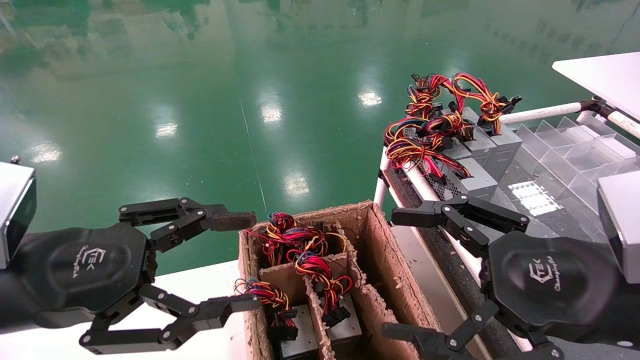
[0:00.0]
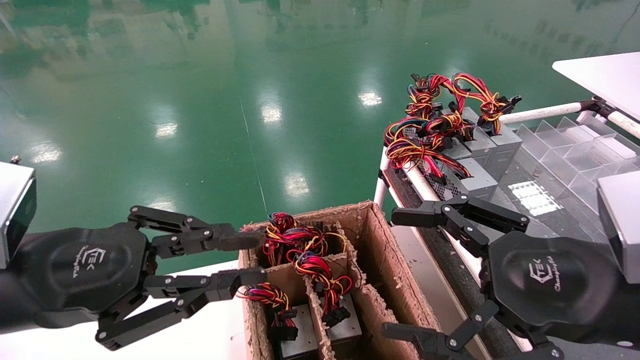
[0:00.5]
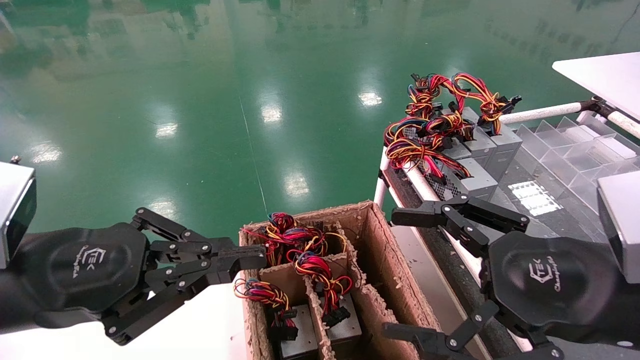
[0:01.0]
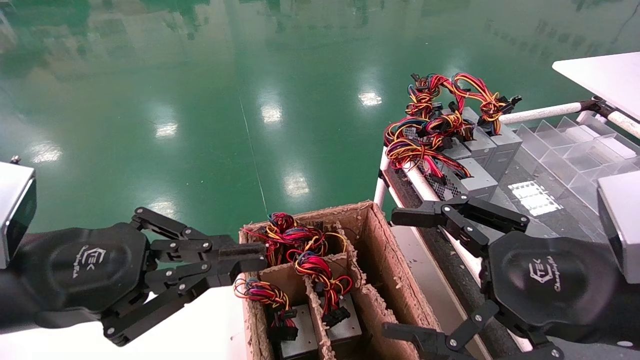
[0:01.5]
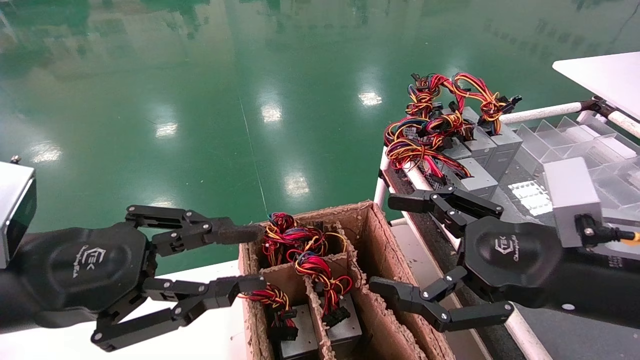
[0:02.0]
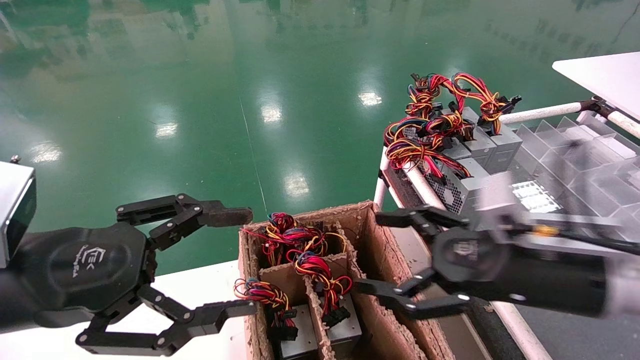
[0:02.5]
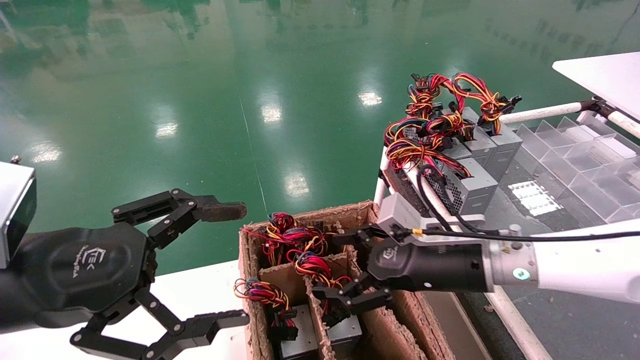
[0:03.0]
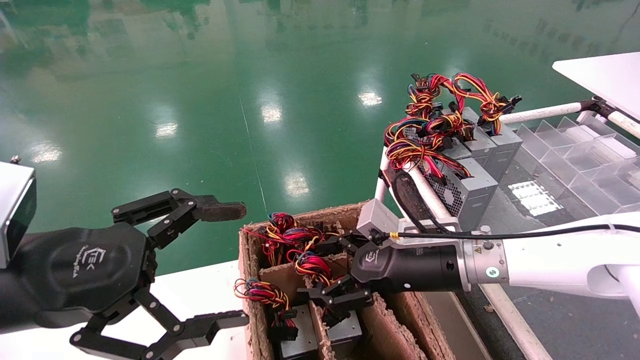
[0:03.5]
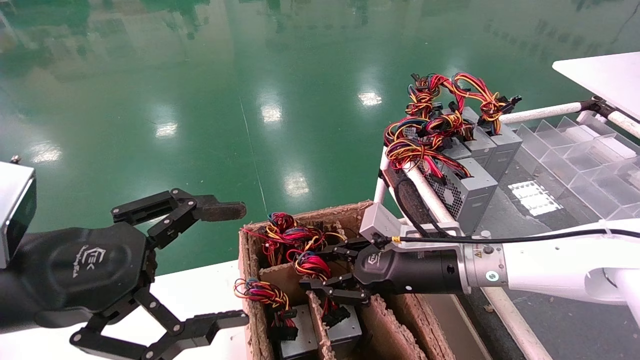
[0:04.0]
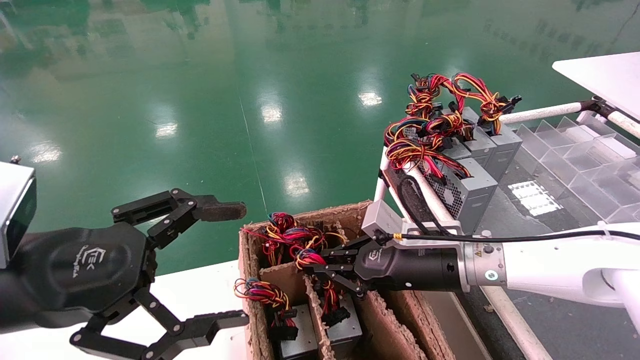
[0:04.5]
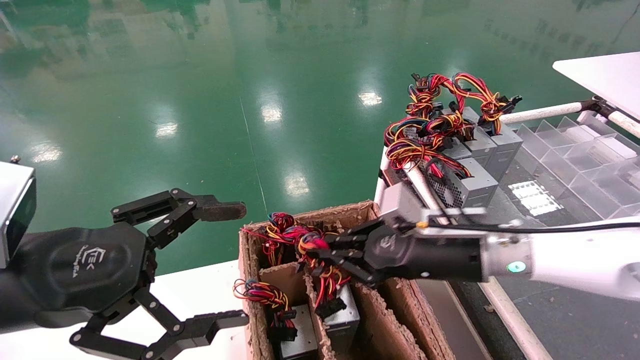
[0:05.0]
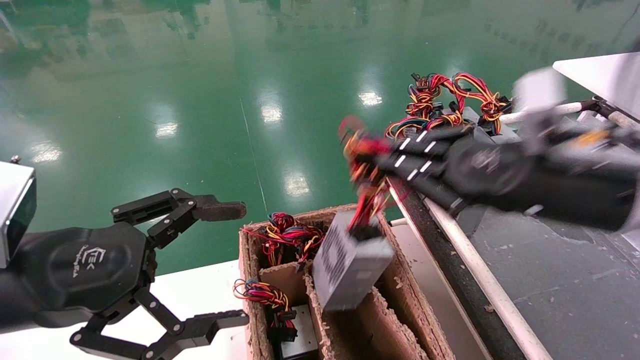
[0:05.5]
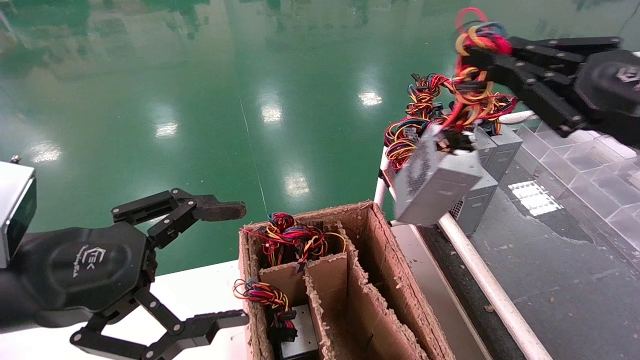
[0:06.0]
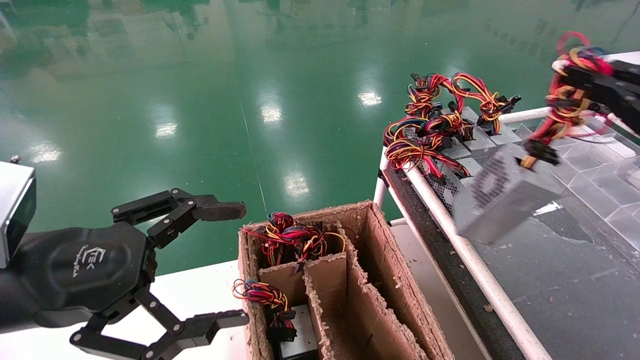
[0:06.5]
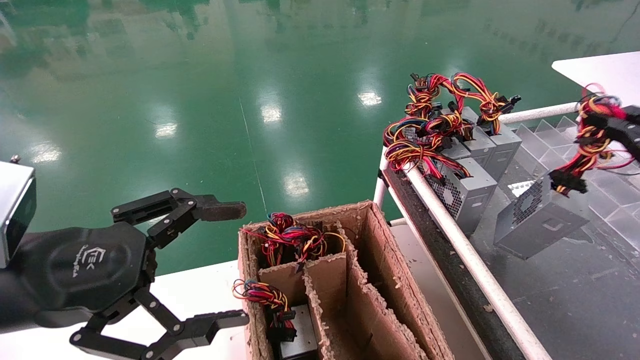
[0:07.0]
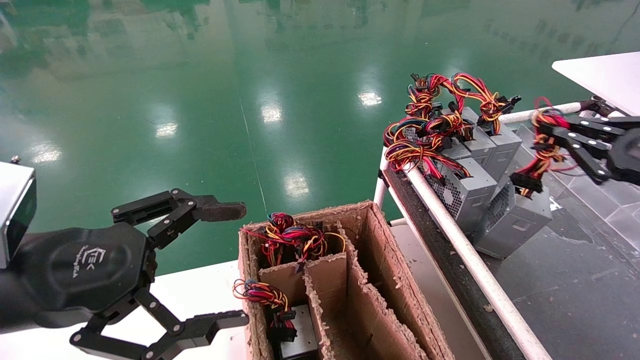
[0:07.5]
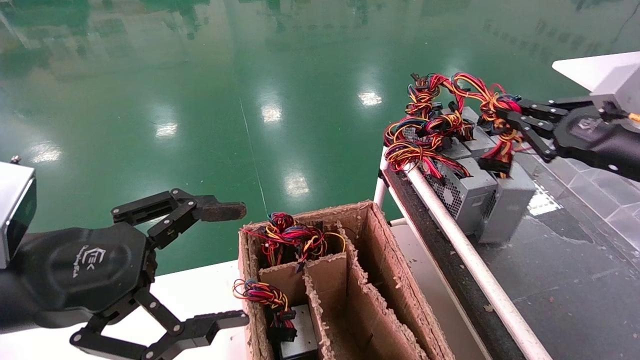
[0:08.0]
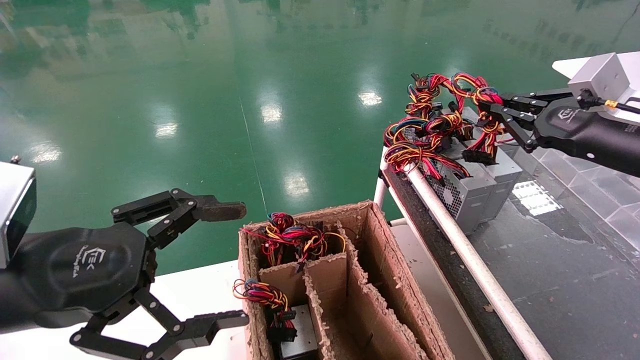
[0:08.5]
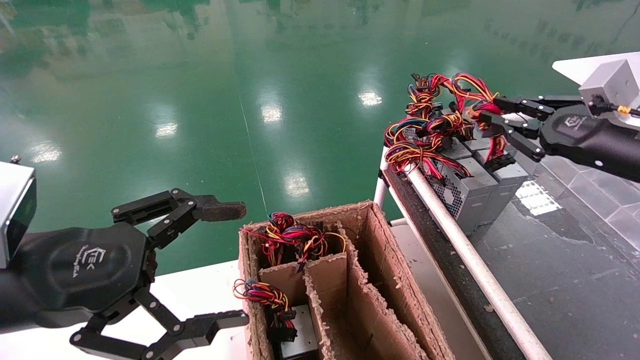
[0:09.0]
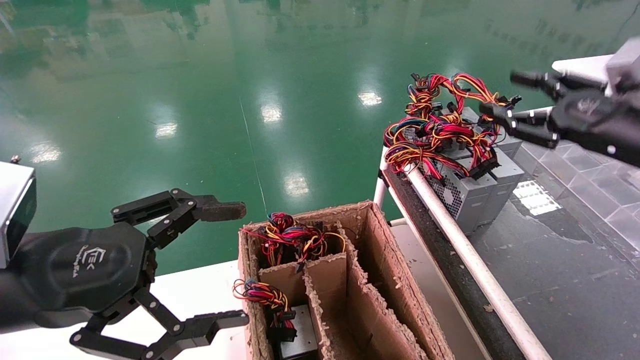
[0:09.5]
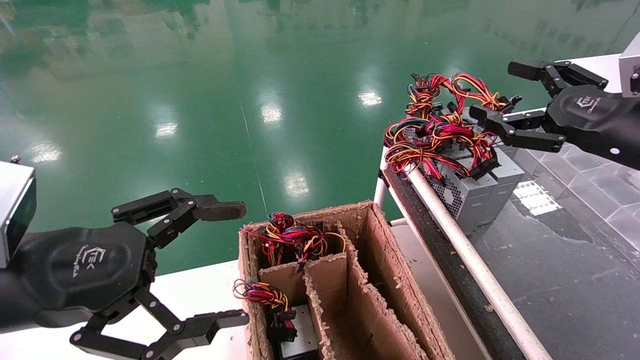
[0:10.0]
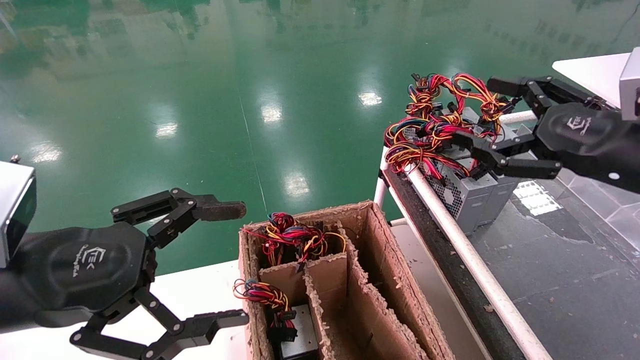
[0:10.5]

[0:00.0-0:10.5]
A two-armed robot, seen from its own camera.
Step, 0:01.0 to 0:04.5: Grab and lift the power supply from the large box.
Step, 0:05.0 to 0:08.5: Place the power supply on the operating table.
0:00.0 to 0:02.0: The left gripper closes up.
0:02.0 to 0:04.0: The left gripper opens its fingers; the right gripper travels forward, to the left and downward by some 20 cm, and closes up.
0:04.0 to 0:06.5: The right gripper moves to the right, upward and backward, about 35 cm, and closes.
0:06.5 to 0:08.5: The right gripper is displaced forward by about 15 cm.
0:08.5 to 0:10.5: The right gripper is displaced backward by roughly 5 cm, and opens.
